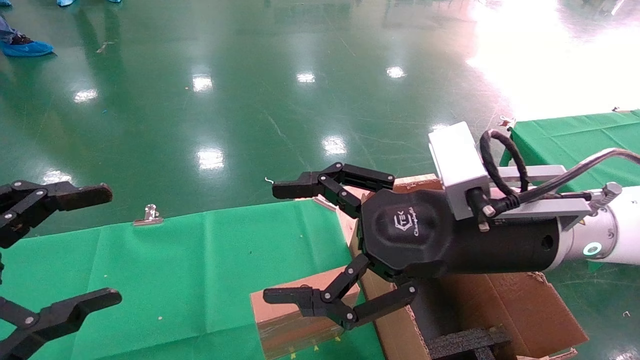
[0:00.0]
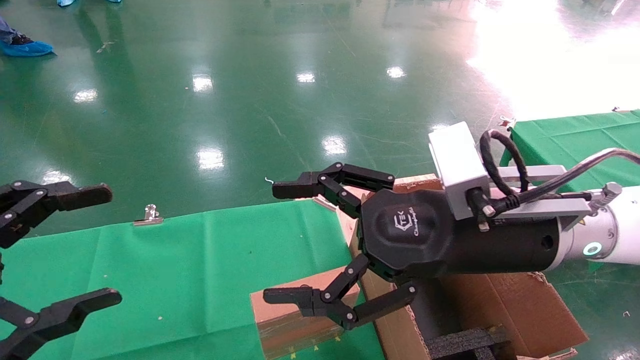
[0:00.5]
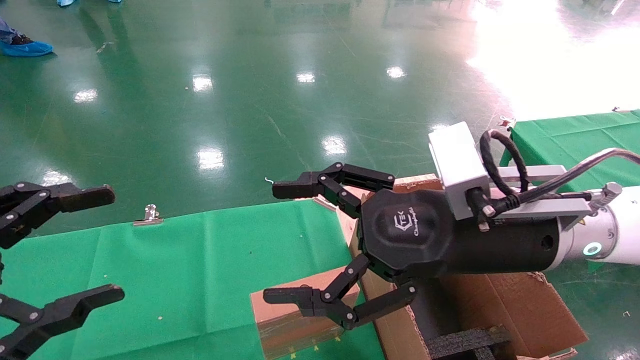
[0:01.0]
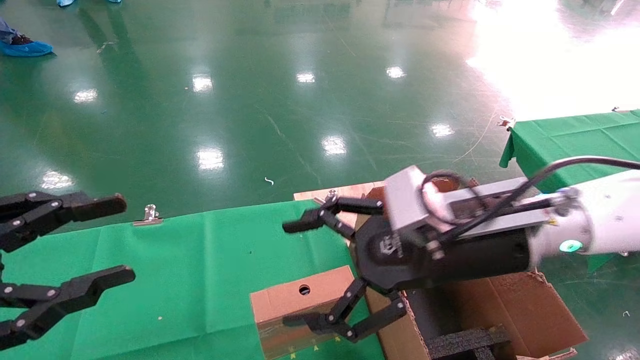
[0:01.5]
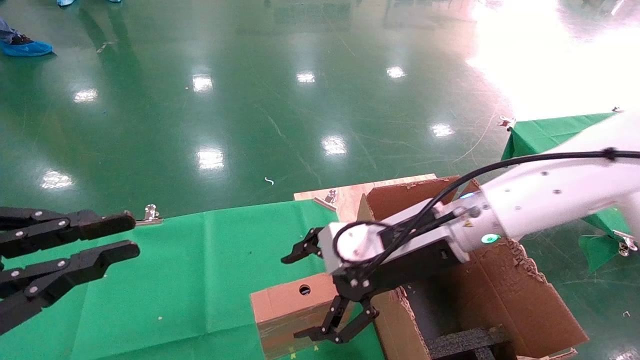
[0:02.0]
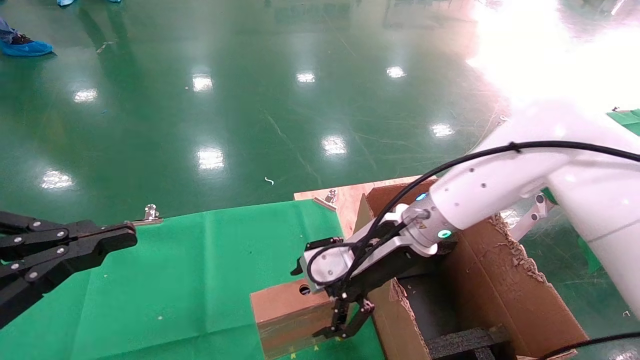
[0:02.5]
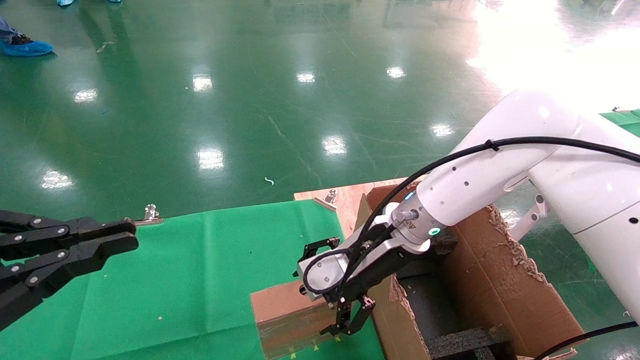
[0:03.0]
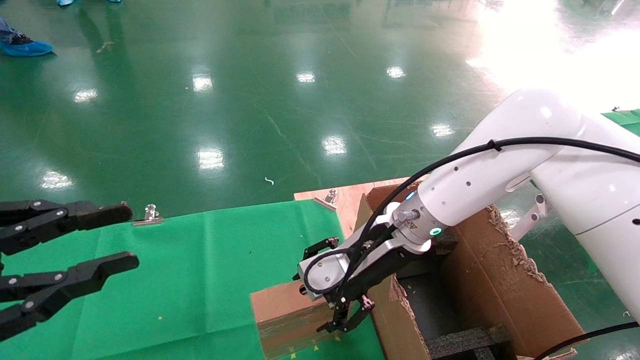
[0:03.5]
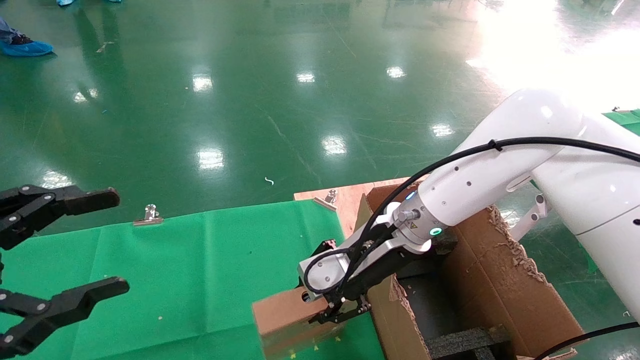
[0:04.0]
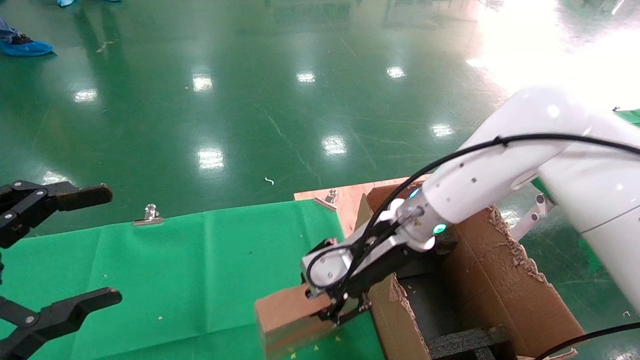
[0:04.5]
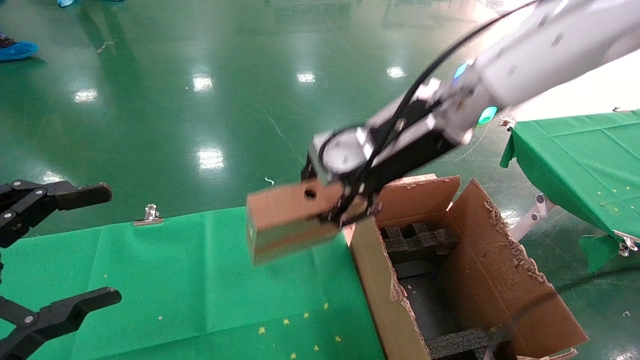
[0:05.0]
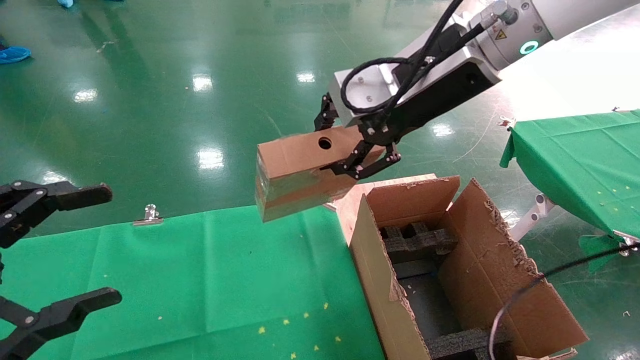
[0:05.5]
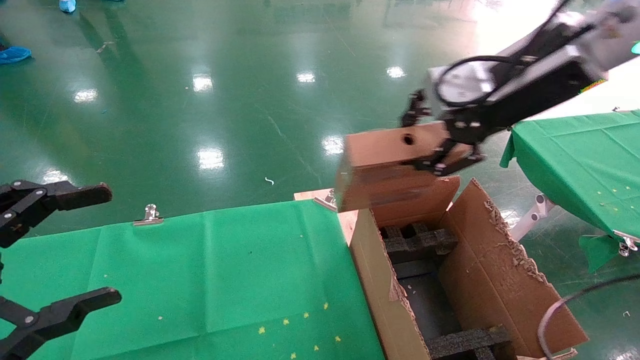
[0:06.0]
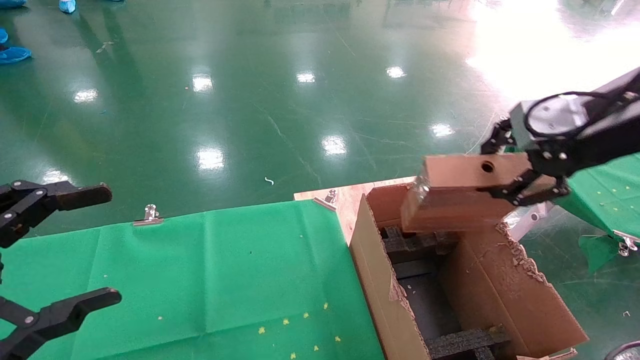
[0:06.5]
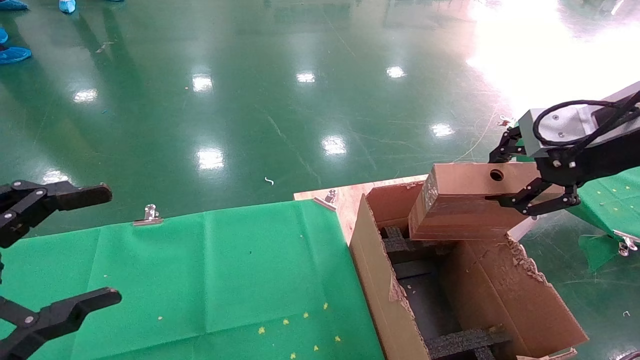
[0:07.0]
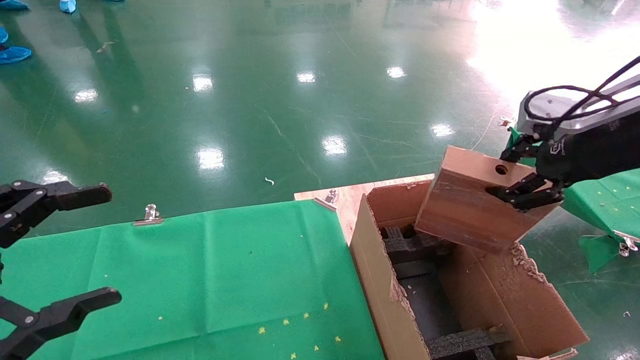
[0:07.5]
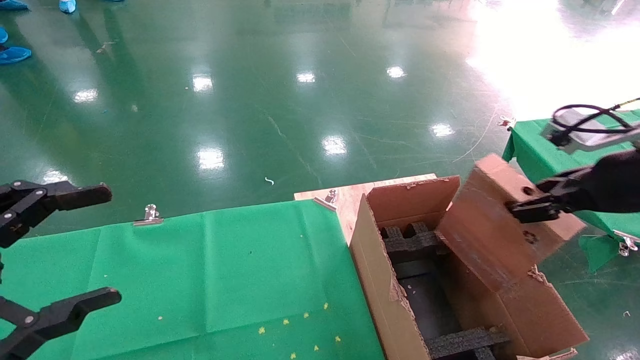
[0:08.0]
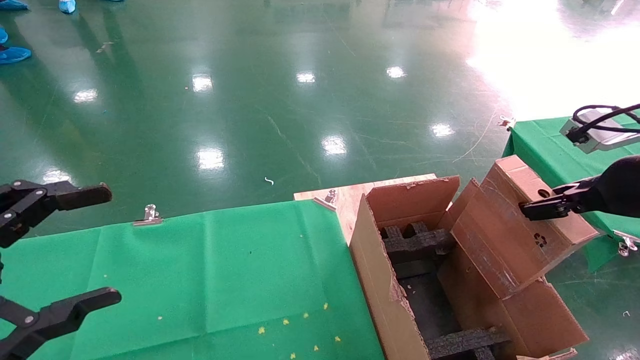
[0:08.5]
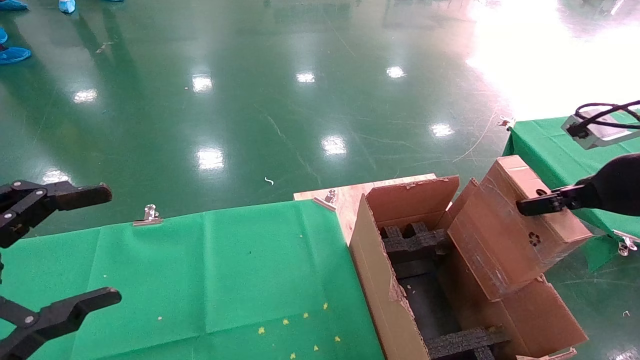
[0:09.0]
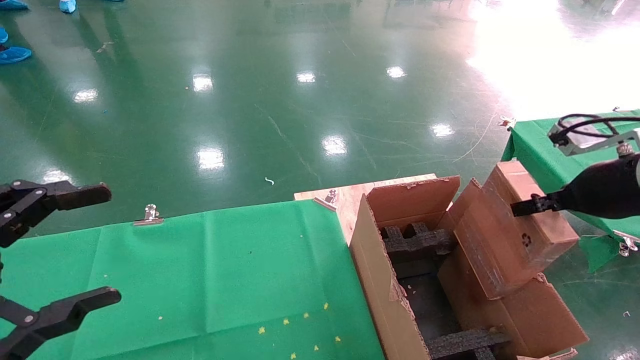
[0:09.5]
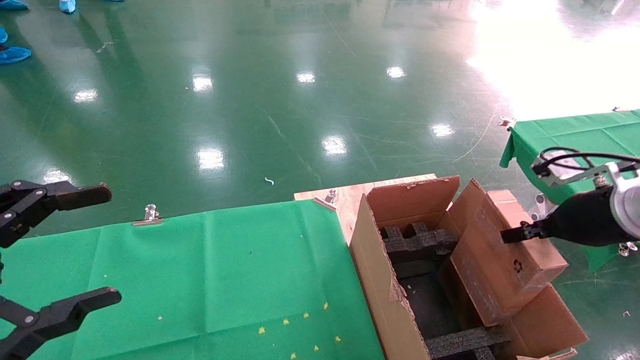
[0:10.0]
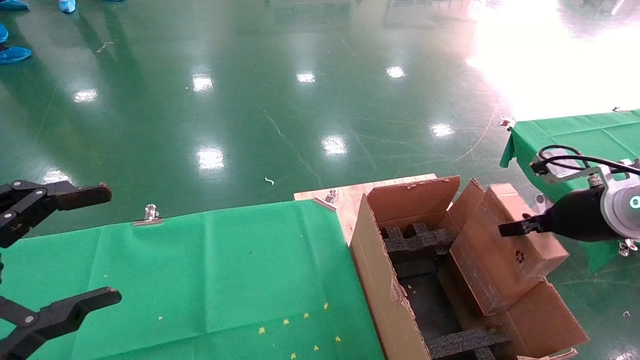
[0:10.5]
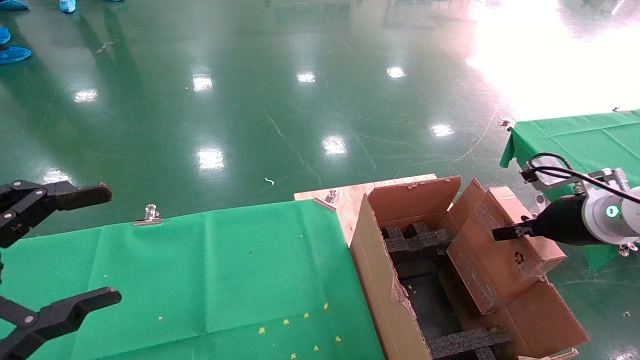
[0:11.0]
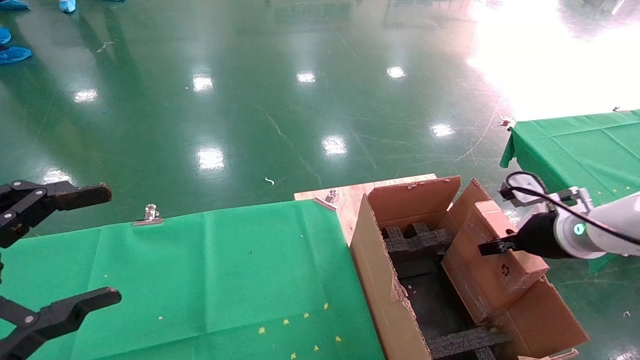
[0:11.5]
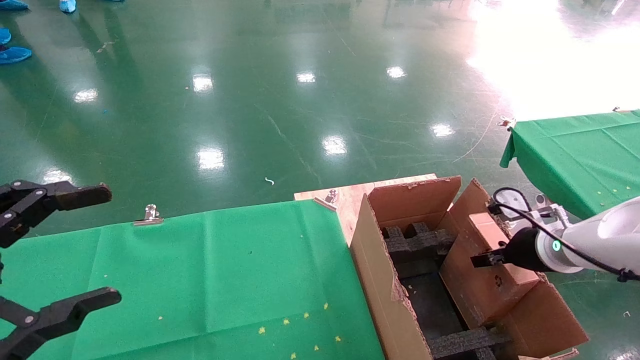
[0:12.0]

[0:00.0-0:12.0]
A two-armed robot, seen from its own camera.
Task of the whole recording: using a robotic arm to pick up a cardboard box and palace it the carton.
Step, 0:01.5 to 0:04.0: Pick up the mouse and the power cord paper box.
0:00.0 to 0:02.0: The left gripper closes up; the right gripper goes about 10 cm forward.
0:02.0 to 0:04.0: The right gripper changes place by about 5 cm, and closes its fingers; the left gripper opens its fingers.
0:04.0 to 0:06.0: The right gripper is displaced upward and to the right by some 25 cm.
0:06.0 to 0:08.0: The right gripper shifts roughly 20 cm to the right, downward and backward.
0:08.0 to 0:10.0: The right gripper moves downward, about 5 cm.
0:10.0 to 0:12.0: The right gripper moves downward and forward, approximately 10 cm.

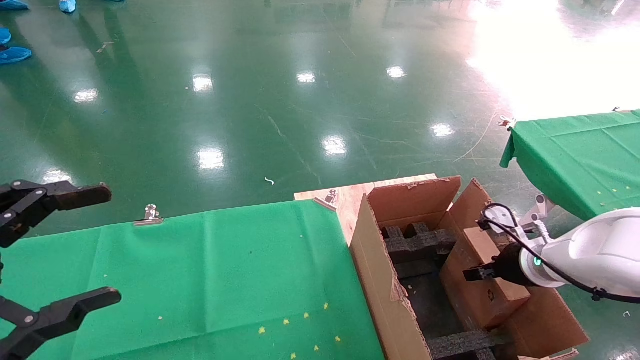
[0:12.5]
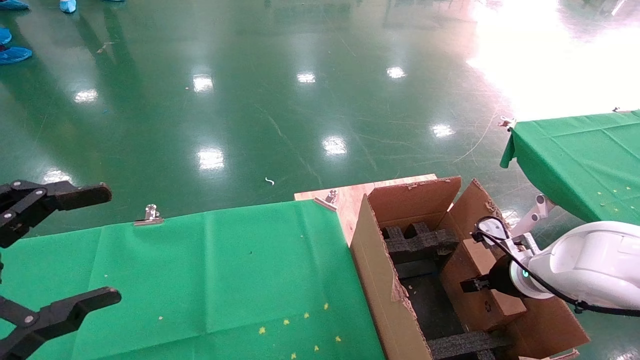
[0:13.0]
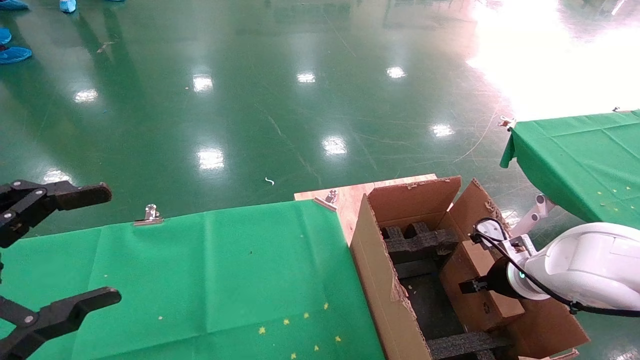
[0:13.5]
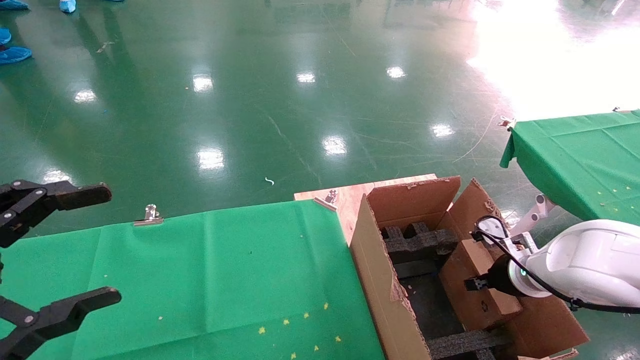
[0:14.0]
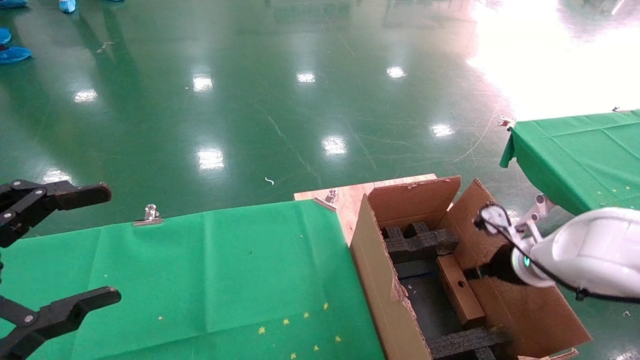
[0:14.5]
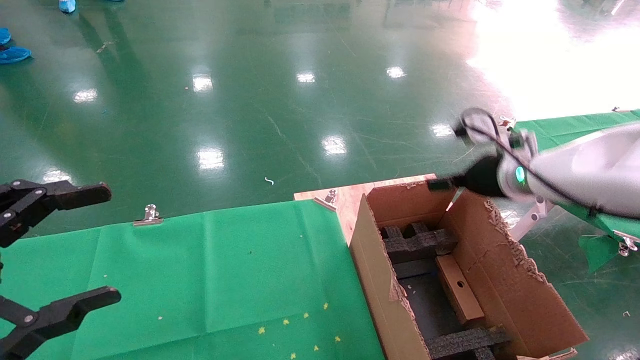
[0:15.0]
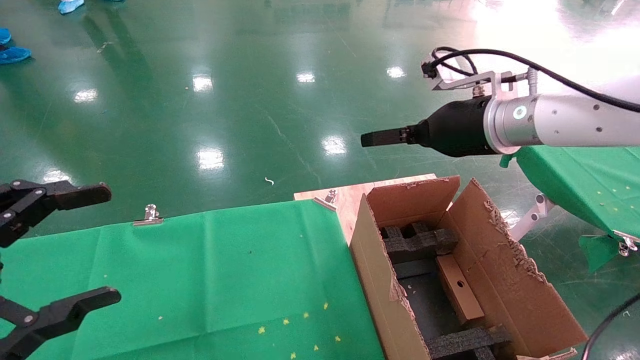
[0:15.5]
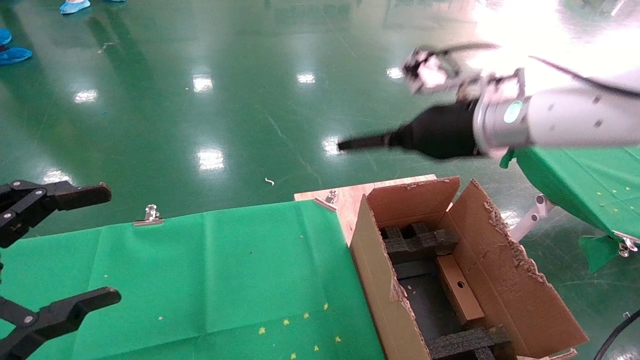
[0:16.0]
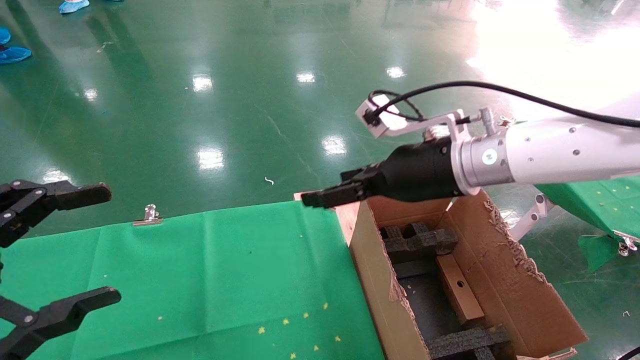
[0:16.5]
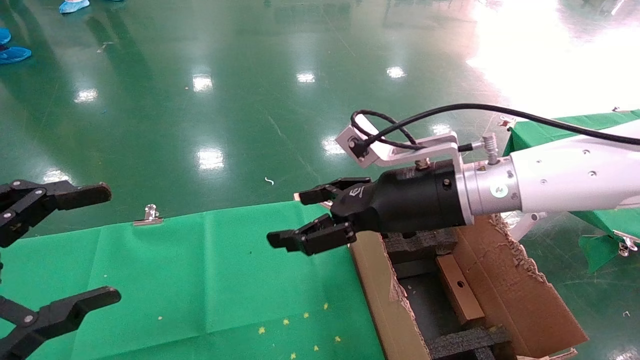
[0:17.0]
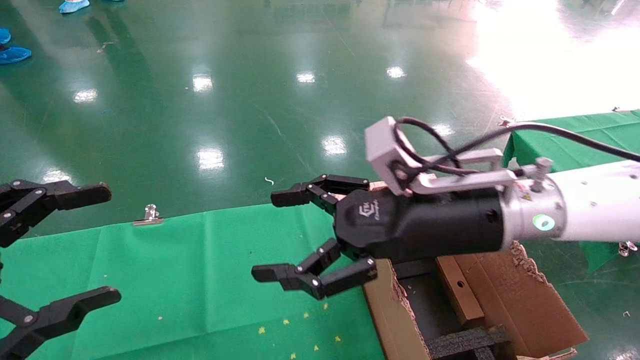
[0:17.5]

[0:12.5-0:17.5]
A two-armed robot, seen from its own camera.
Task of the whole recording: using a robotic arm to pick up a cardboard box and palace it the carton.
Step, 0:12.5 to 0:14.5: Place the mouse and the power cord paper box into the container.
0:12.5 to 0:15.0: The right gripper goes about 15 cm upward and to the left, and opens.
0:15.0 to 0:17.5: The right gripper travels to the left and backward by some 20 cm.
